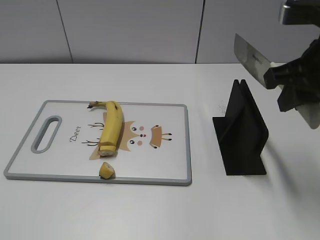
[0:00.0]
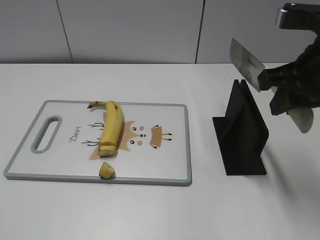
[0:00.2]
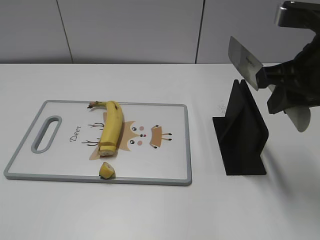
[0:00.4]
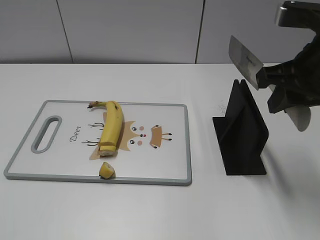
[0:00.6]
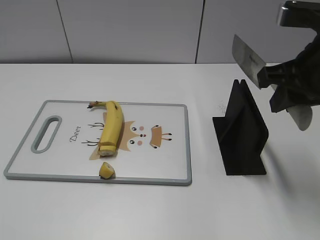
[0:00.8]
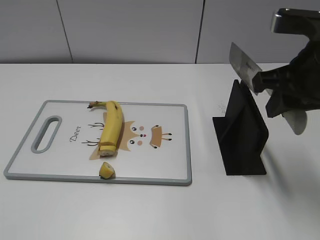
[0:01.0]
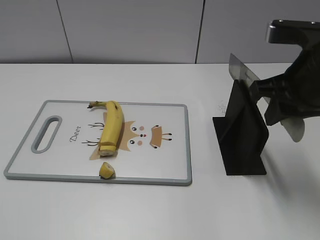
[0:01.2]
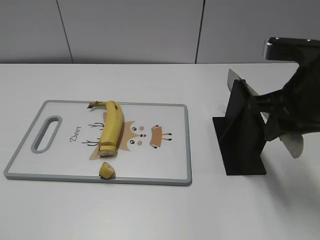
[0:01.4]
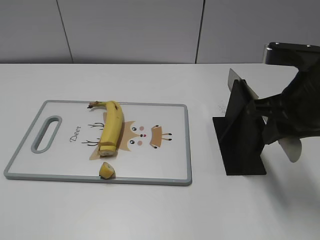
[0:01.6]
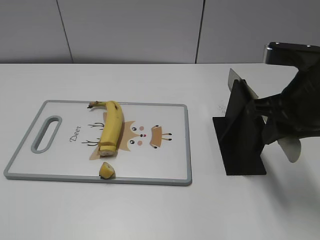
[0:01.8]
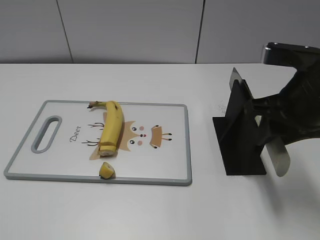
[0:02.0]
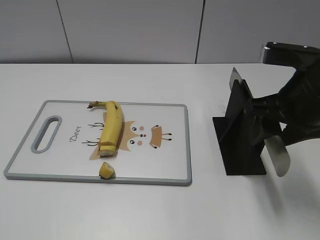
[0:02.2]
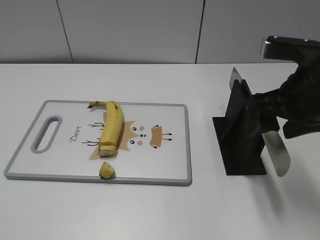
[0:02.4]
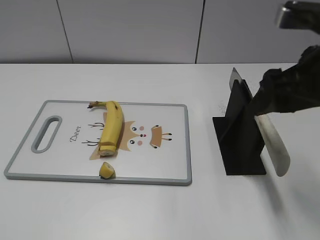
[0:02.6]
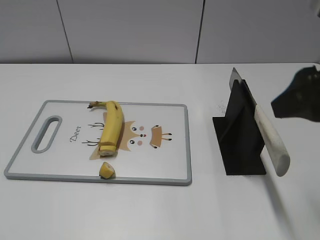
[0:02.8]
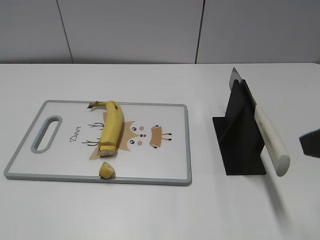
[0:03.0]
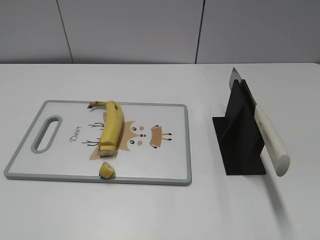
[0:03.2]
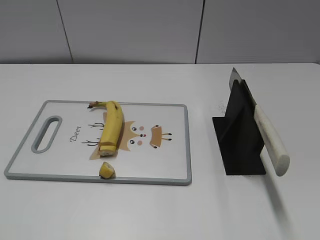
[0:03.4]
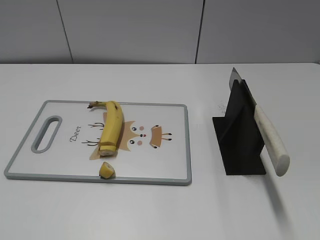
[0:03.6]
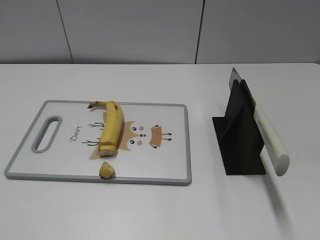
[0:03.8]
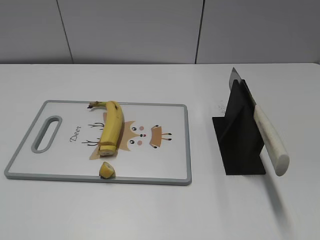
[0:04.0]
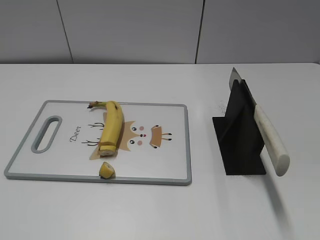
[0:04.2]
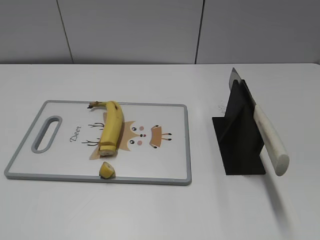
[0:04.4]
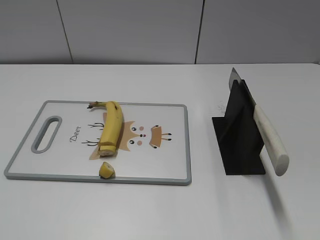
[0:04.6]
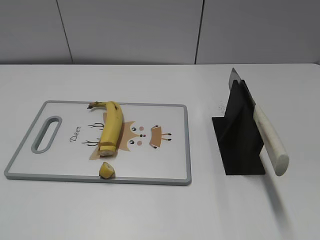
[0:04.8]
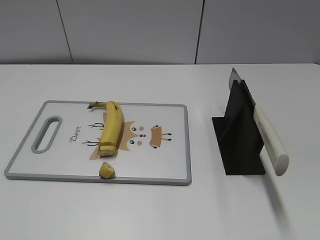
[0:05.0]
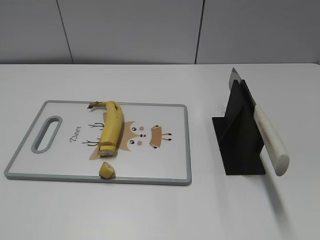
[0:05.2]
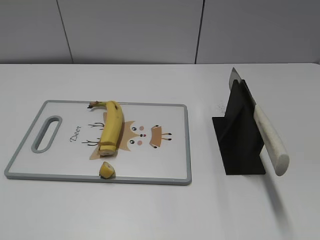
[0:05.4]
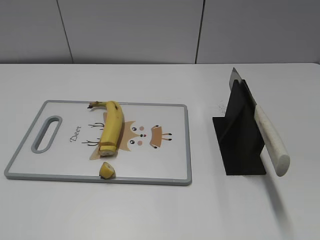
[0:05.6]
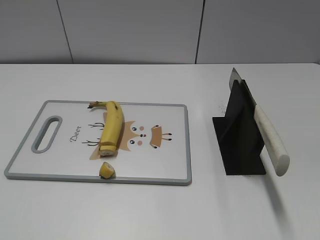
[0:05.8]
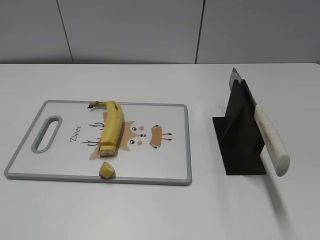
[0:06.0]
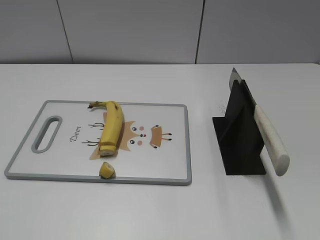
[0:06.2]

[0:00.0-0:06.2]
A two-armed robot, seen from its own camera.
Task of the whole recording: cut banana.
Step, 0:01.6 to 0:06.2: Place the knife on the storage rack with your right hand.
0:00.0 to 0:01.6: The grippers stay close to where they were, moving slightly.
0:01.6 to 0:03.2: The right gripper shifts about 15 cm backward, to the right and upward, and opens its fingers.

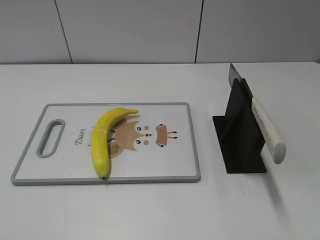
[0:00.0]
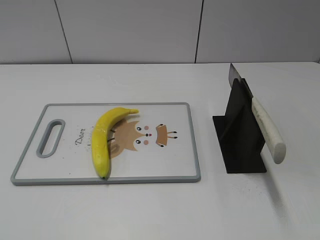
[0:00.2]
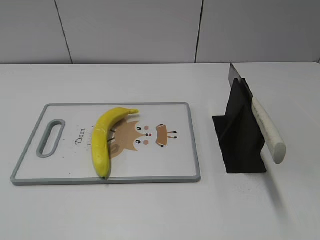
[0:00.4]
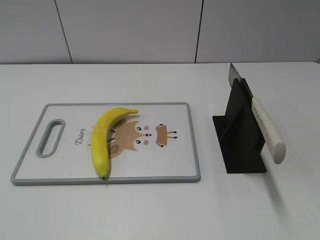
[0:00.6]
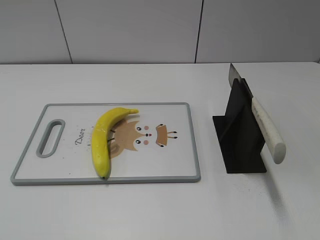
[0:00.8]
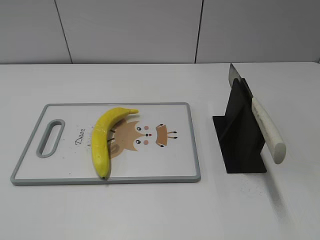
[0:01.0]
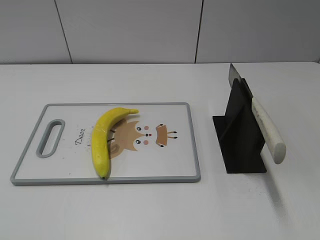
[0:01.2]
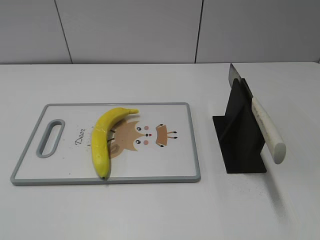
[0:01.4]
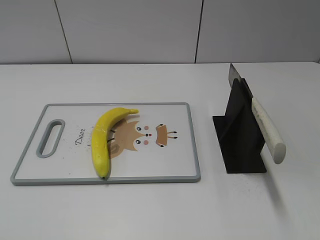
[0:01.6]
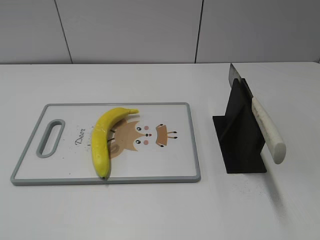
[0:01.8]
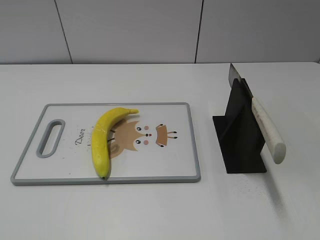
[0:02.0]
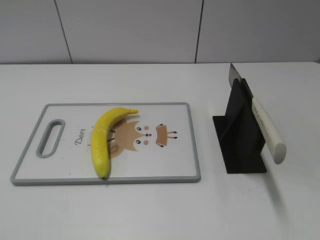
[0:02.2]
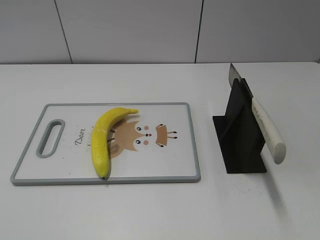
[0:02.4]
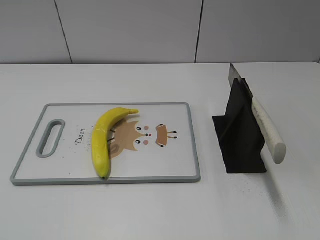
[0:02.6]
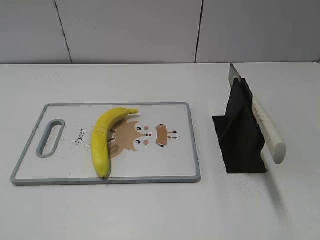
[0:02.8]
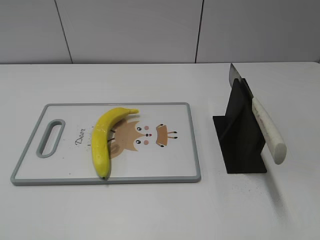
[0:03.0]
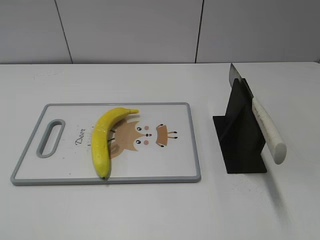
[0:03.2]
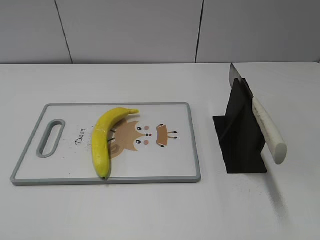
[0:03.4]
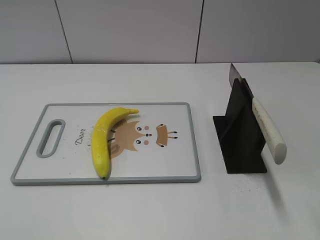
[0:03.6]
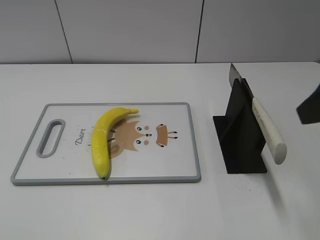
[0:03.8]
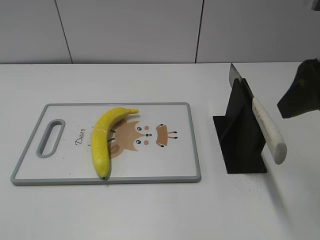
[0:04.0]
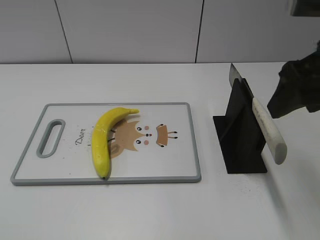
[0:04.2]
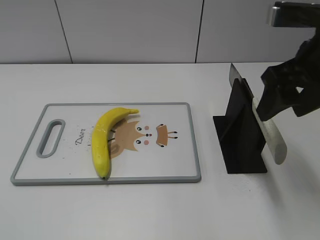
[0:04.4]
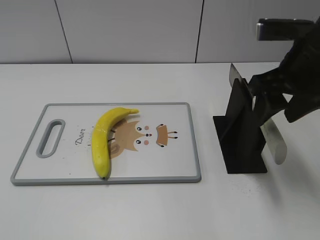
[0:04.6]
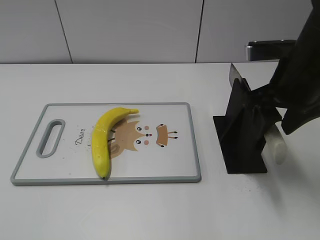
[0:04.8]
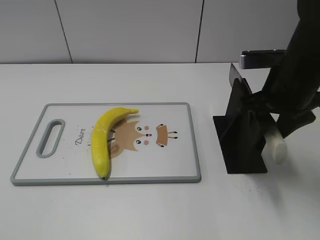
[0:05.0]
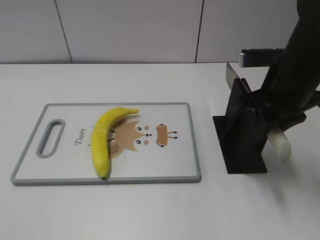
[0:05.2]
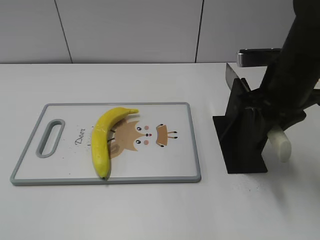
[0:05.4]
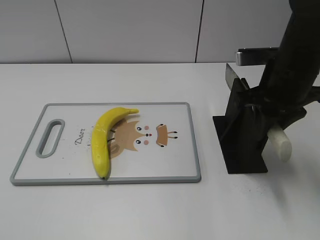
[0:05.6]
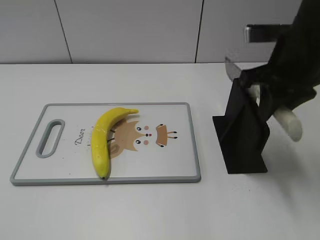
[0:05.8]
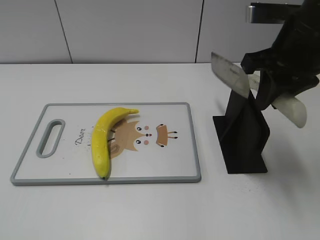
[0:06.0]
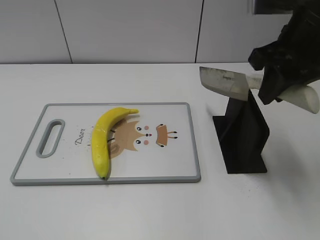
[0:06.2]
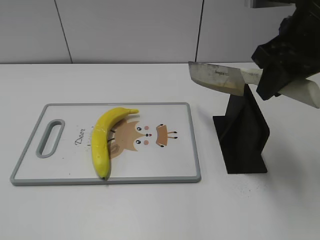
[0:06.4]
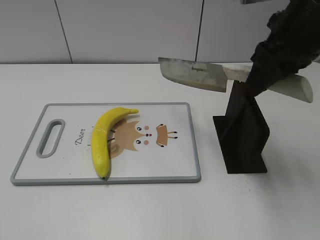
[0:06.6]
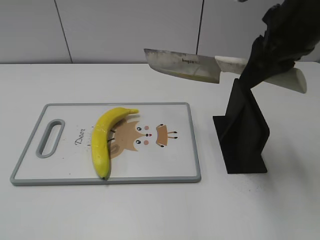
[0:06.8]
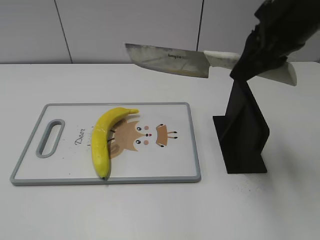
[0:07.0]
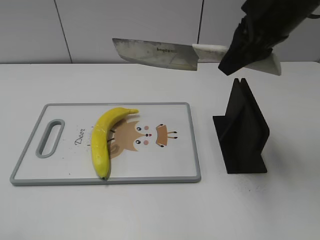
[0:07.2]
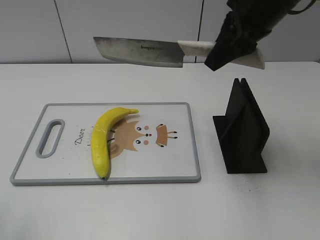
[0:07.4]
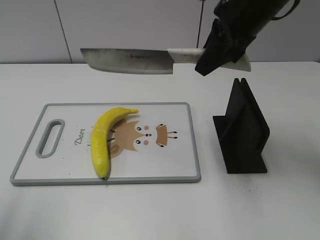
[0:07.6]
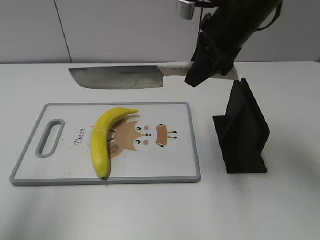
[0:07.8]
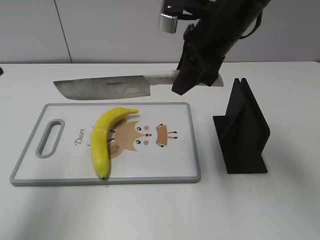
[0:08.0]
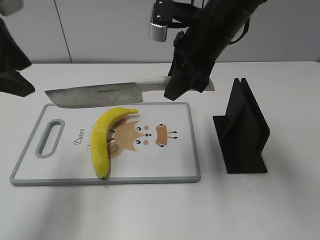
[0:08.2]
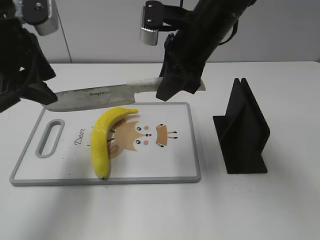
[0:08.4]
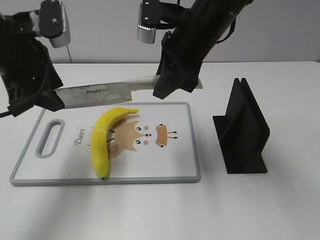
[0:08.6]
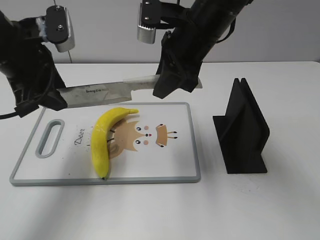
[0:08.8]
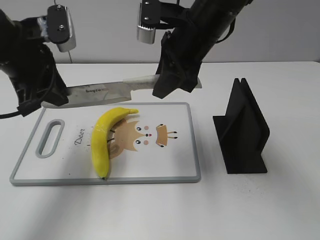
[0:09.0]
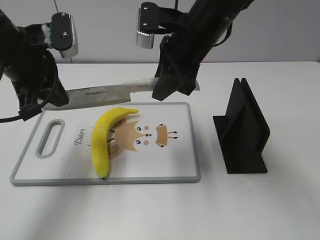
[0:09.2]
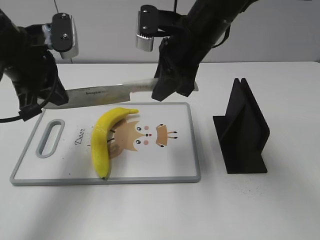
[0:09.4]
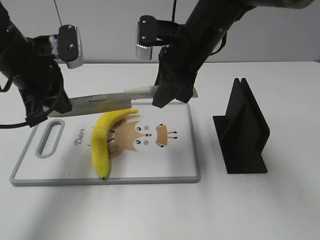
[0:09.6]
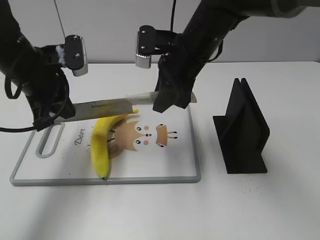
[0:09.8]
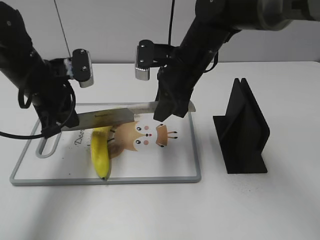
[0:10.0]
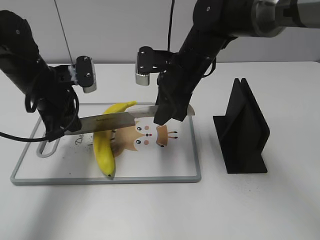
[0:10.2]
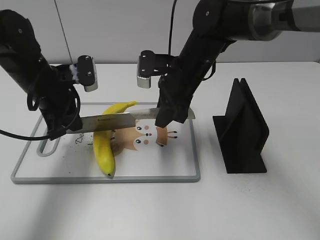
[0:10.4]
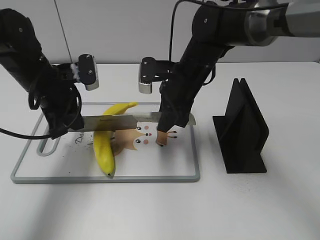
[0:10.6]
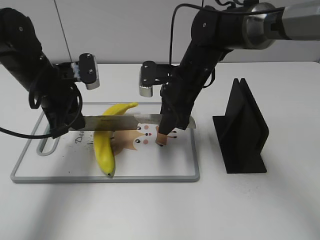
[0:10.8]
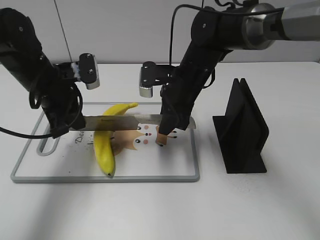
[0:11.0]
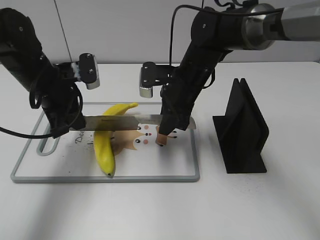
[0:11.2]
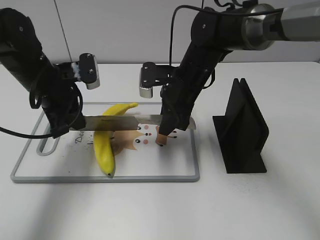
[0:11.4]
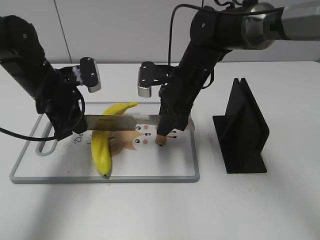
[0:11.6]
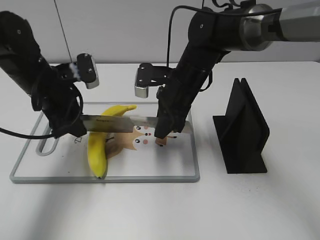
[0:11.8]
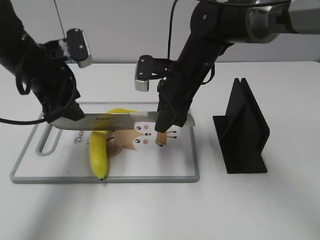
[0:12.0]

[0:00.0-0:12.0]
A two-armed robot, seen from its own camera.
Task of the whole recording: cut plastic banana.
Step, 0:00.0 to 0:06.4: Grab the knife handle with your right hand.
Step, 0:06.6 to 0:11.4: Lift the knife with your right hand.
0:03.0 to 0:04.4: The right gripper moves forward and to the left, approximately 20 cm.
0:04.4 to 0:06.0: The right gripper closes its fingers.
0:06.0 to 0:07.6: The right gripper goes about 10 cm forward and to the left. Meanwhile the left gripper moves forward and upward, some 15 cm.
0:07.6 to 0:09.0: The left gripper heads forward, downward and to the right, covering about 20 cm, and closes up. The right gripper goes roughly 5 cm to the left.
0:09.0 to 0:10.4: Both grippers move downward, about 10 cm. The left gripper closes.
0:10.4 to 0:12.0: The left gripper moves upward, roughly 5 cm, and opens.

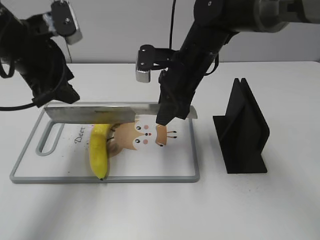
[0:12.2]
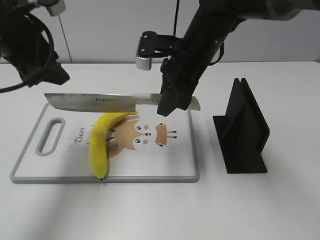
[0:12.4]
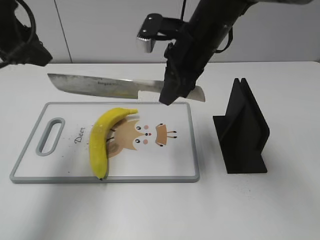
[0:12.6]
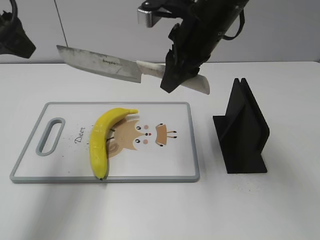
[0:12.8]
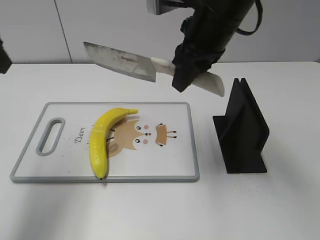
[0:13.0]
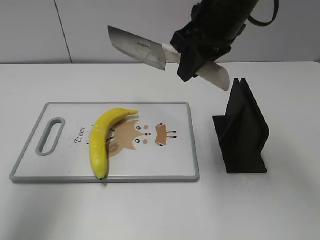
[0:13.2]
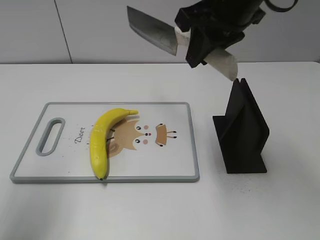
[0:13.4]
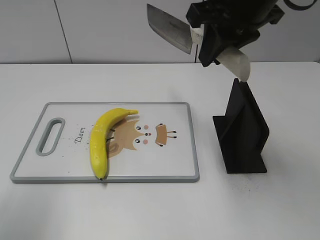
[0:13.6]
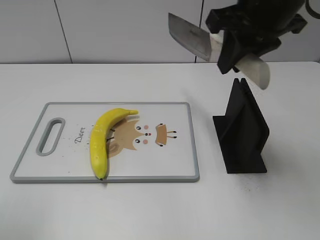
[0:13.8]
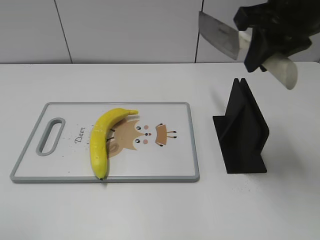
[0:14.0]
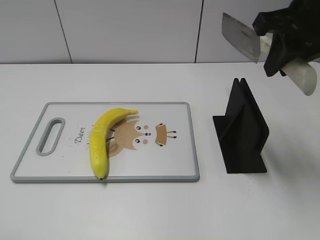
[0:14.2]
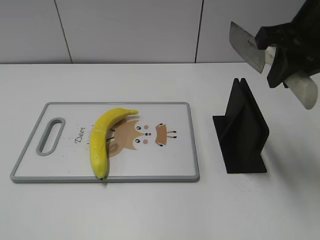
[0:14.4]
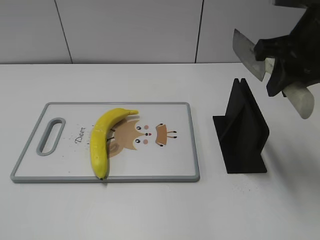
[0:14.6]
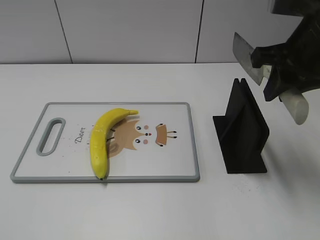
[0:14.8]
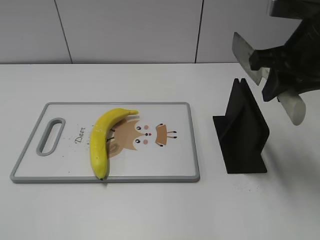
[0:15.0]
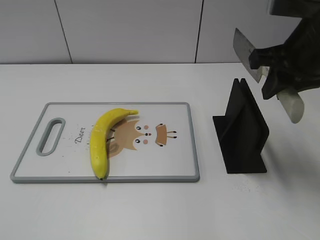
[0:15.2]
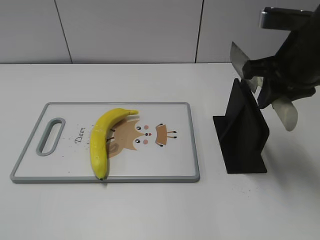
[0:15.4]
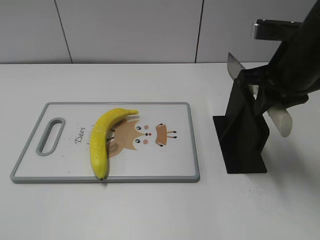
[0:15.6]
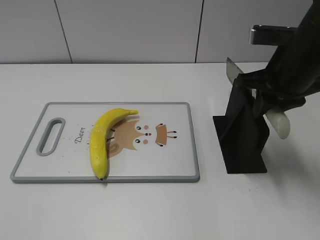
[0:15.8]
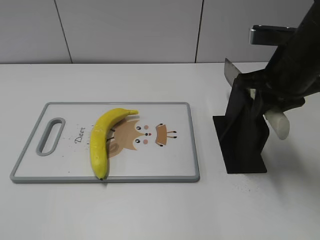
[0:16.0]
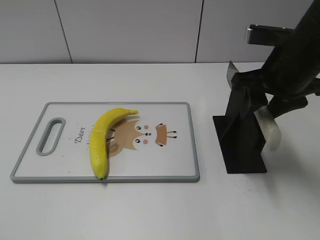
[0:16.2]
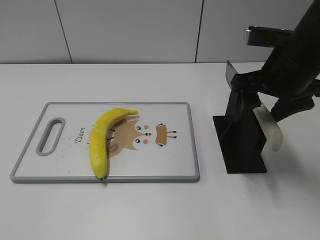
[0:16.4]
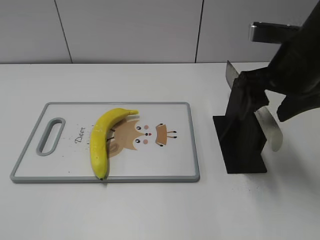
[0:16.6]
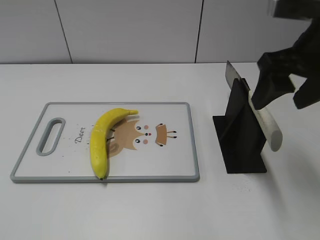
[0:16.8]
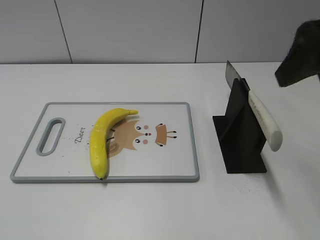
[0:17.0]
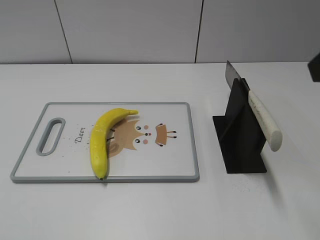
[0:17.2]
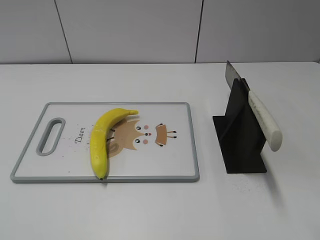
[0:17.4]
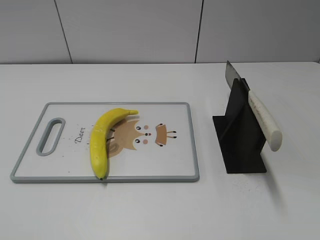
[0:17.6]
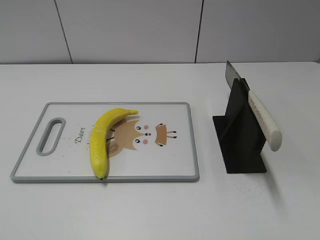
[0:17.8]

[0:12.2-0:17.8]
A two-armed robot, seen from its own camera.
Task of the whole recording: cut plastic banana.
Step, 0:12.2 to 0:13.2: Cut the banana with your right hand.
Step, 0:13.6 to 0:15.4: Lift the knife with your right hand.
0:12.2 to 0:13.6: The right gripper is displaced upward by some 15 cm, while the left gripper goes about 15 cm backward, to the left and upward.
0:13.6 to 0:15.0: The left gripper goes approximately 15 cm backward, while the right gripper travels to the right and downward by approximately 10 cm.
0:15.0 to 0:16.4: The right gripper opens.
0:16.4 to 0:17.8: The right gripper travels backward by approximately 25 cm.
